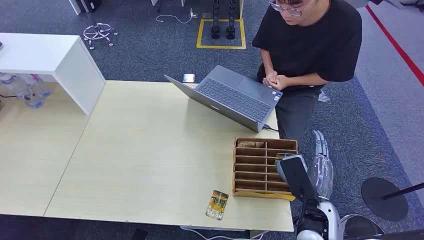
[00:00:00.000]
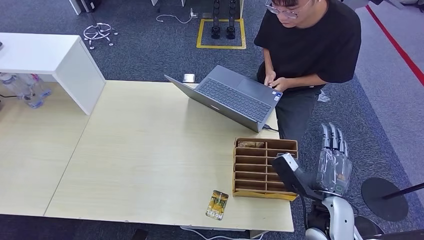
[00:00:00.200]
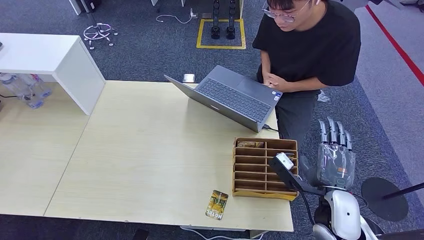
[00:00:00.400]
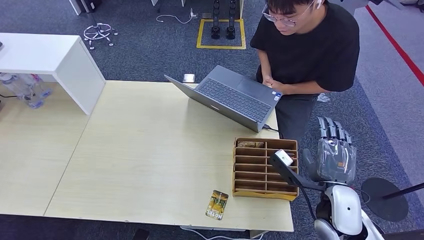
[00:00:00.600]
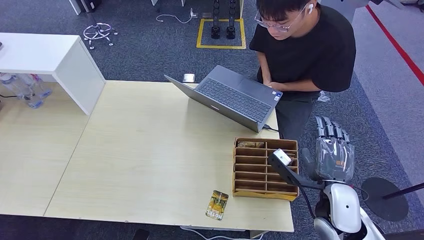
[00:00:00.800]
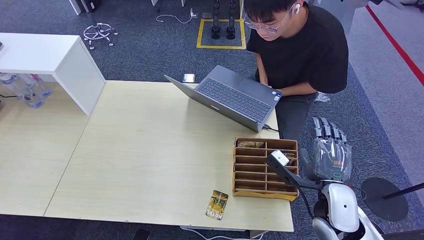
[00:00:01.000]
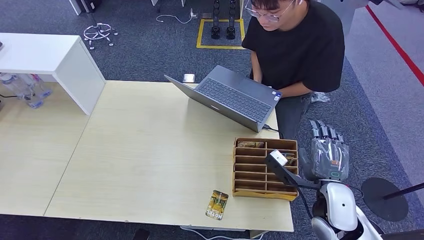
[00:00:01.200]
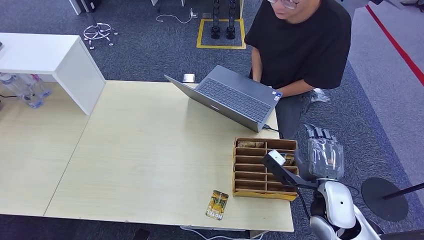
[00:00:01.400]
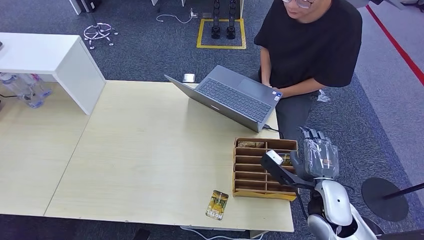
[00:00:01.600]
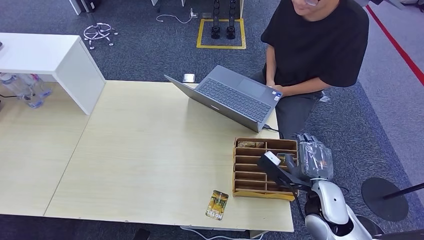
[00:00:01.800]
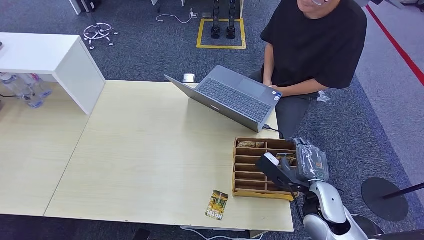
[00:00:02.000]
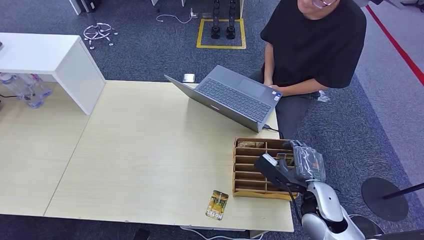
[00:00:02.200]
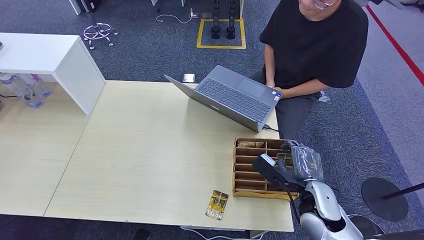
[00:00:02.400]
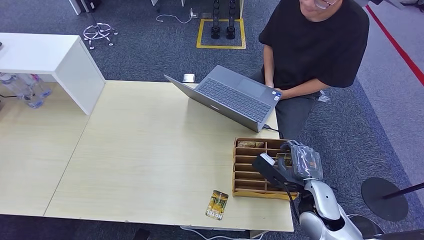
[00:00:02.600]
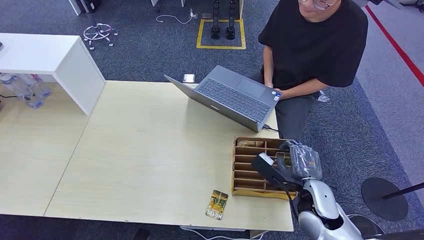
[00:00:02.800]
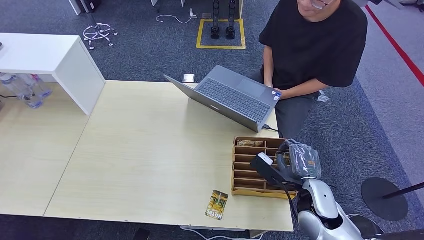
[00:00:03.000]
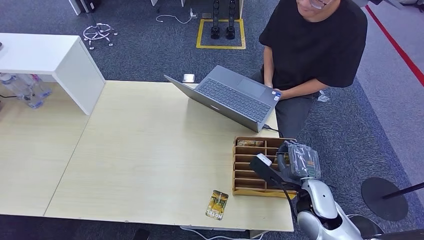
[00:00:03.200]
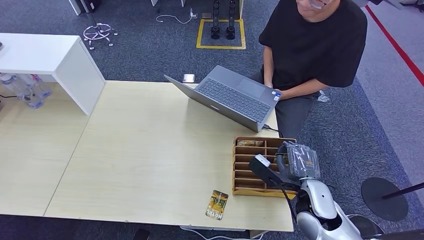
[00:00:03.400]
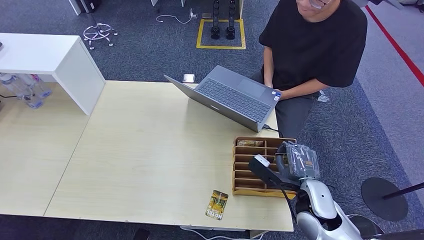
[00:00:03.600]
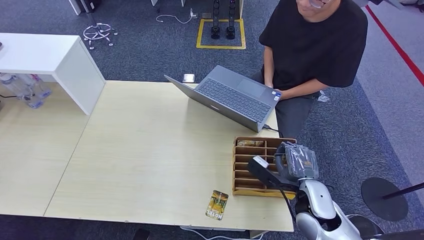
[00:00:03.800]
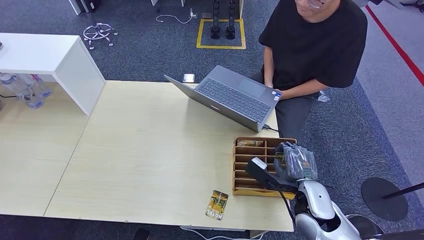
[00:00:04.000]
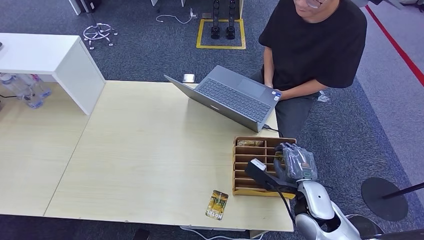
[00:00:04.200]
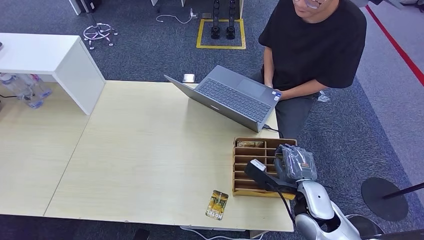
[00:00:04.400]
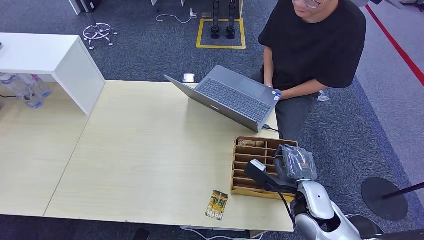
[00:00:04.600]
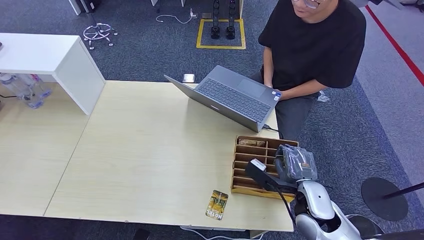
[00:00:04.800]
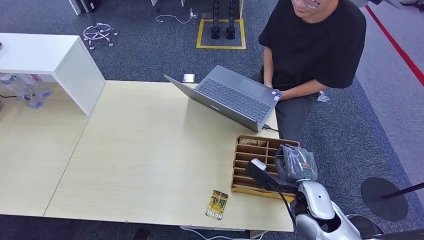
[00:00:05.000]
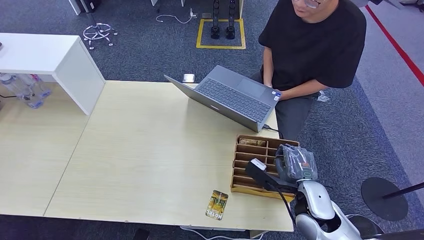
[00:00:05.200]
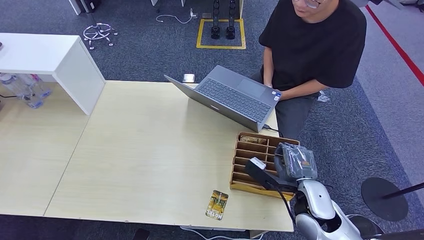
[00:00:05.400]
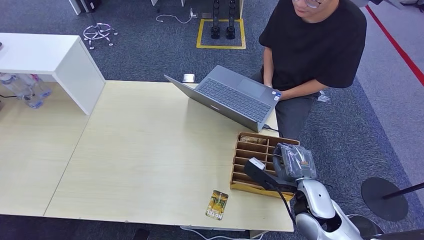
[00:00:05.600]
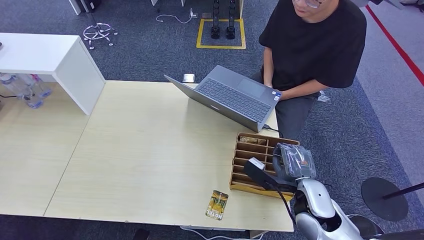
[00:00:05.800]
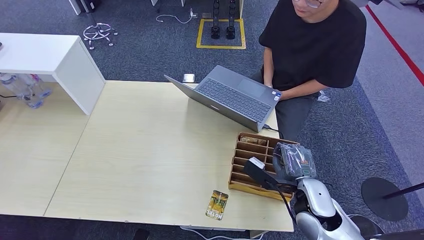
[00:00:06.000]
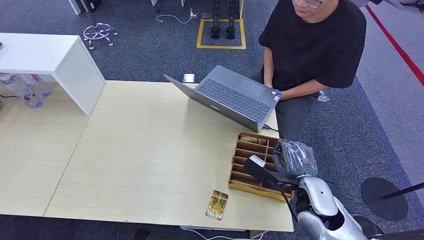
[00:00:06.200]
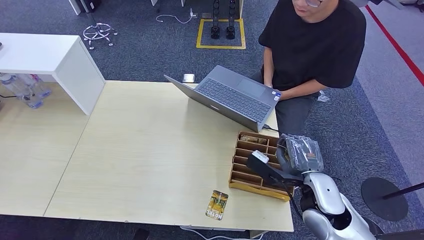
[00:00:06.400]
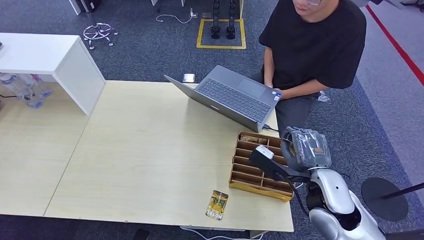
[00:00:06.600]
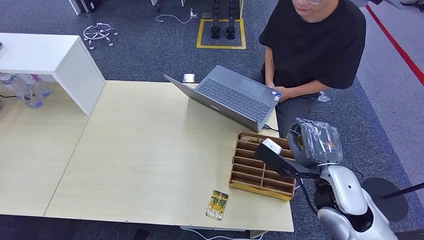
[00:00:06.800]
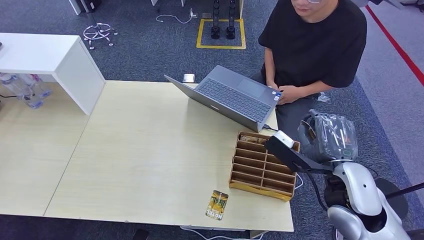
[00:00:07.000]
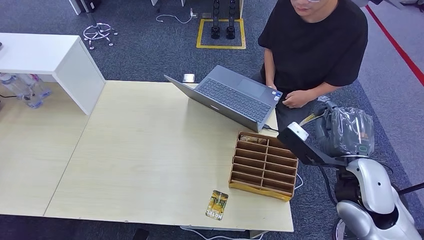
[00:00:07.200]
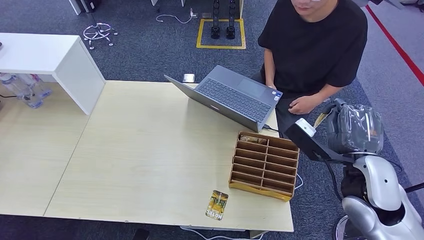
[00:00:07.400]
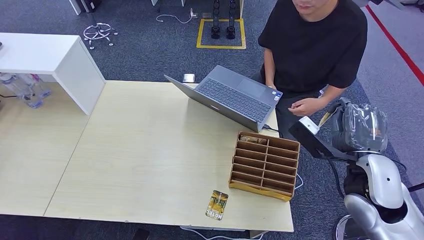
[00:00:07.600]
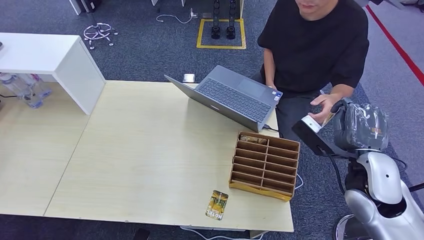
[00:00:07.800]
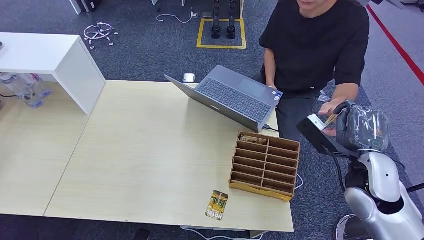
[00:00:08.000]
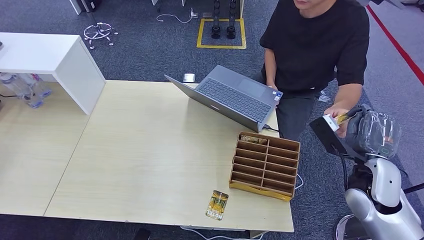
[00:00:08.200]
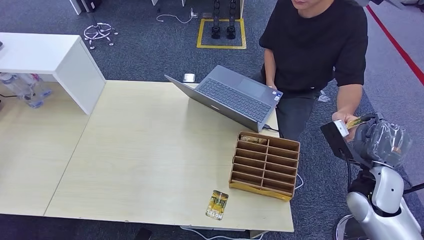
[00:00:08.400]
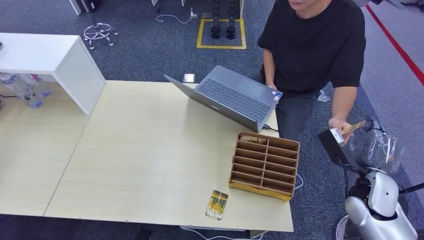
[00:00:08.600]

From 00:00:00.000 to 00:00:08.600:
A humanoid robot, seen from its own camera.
Step, from 00:00:00.000 to 00:00:07.200: Pick up the room card from the card holder.
Step, from 00:00:07.400 to 00:00:08.600: Hand the room card to the target.
From 00:00:01.400 to 00:00:04.400: There are only small adjustments of the hands.
From 00:00:04.400 to 00:00:05.800: Both hands stay put.
From 00:00:05.800 to 00:00:07.200: The right hand heads upward, covering about 10 cm.
From 00:00:07.200 to 00:00:08.600: The right hand shifts about 15 cm downward and to the right.
